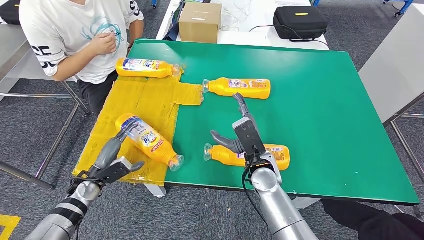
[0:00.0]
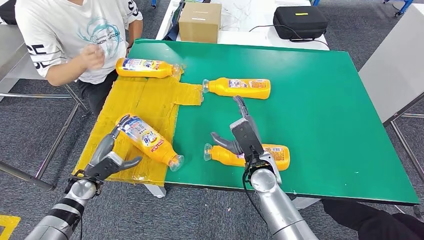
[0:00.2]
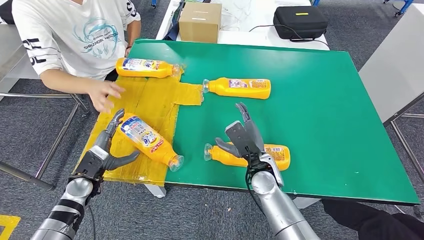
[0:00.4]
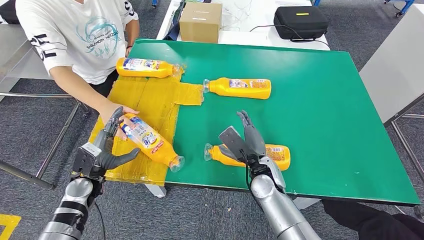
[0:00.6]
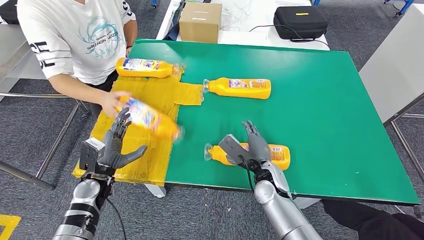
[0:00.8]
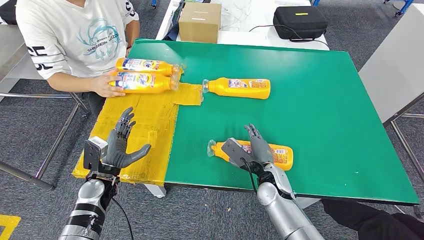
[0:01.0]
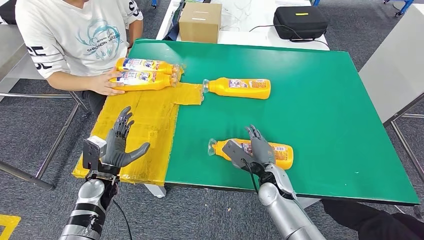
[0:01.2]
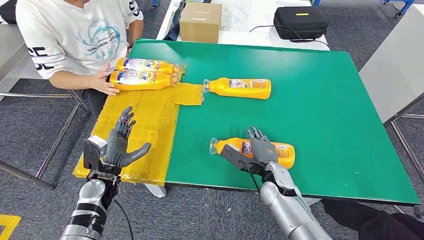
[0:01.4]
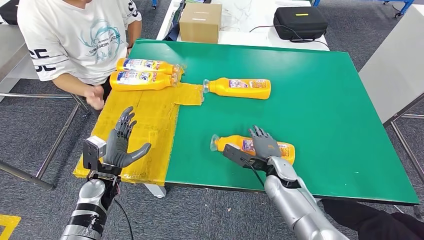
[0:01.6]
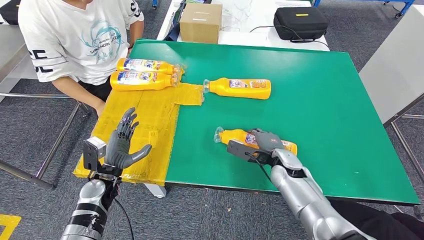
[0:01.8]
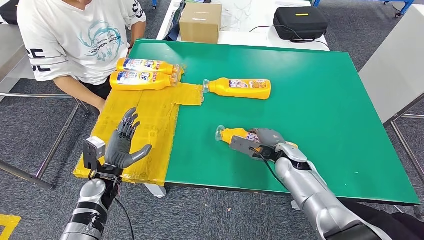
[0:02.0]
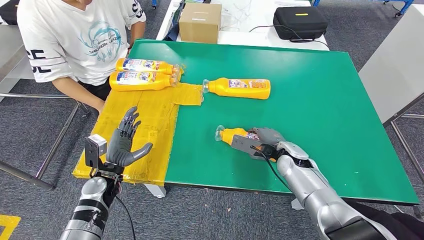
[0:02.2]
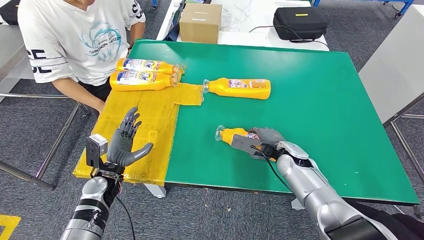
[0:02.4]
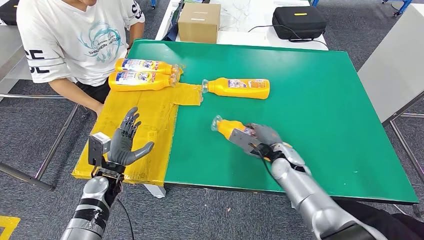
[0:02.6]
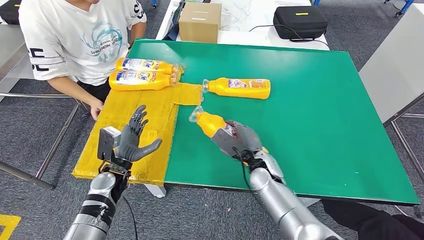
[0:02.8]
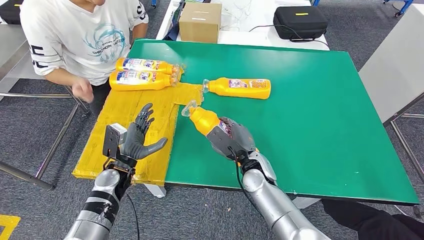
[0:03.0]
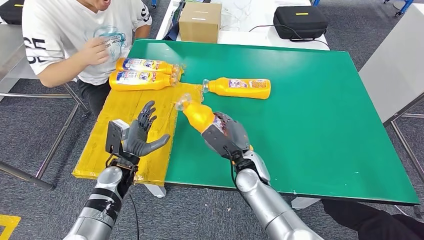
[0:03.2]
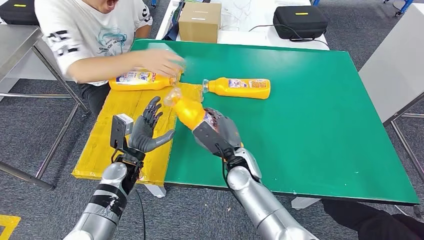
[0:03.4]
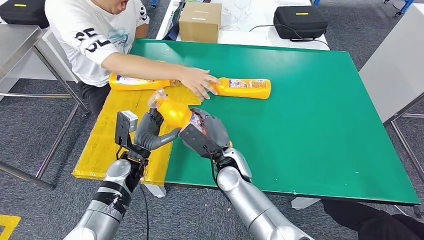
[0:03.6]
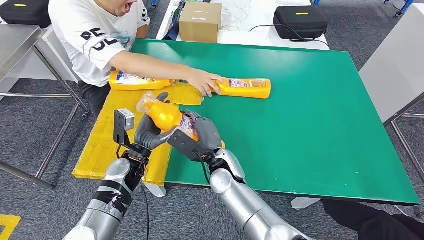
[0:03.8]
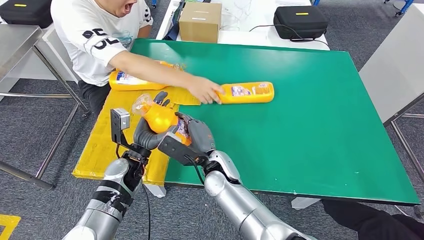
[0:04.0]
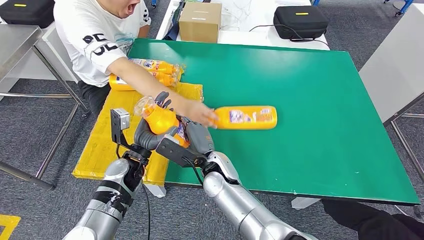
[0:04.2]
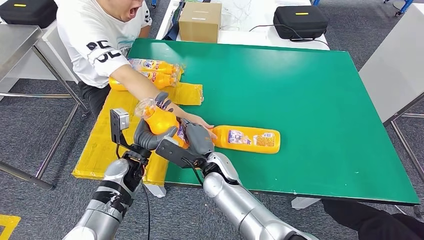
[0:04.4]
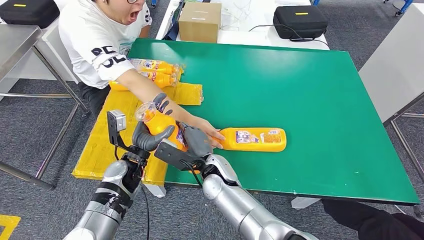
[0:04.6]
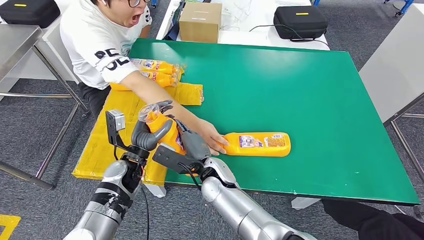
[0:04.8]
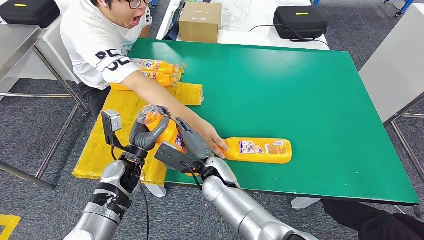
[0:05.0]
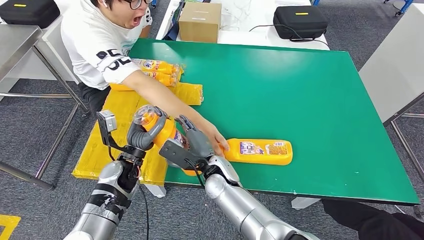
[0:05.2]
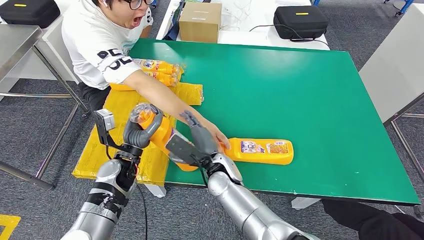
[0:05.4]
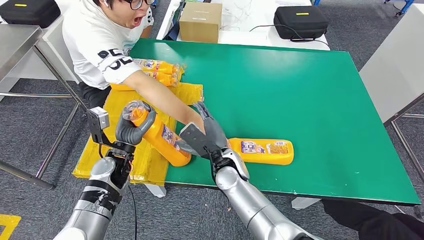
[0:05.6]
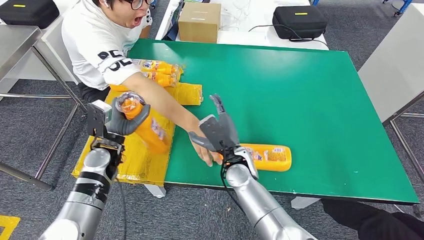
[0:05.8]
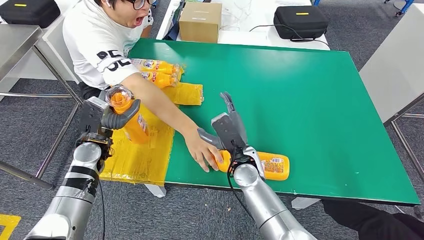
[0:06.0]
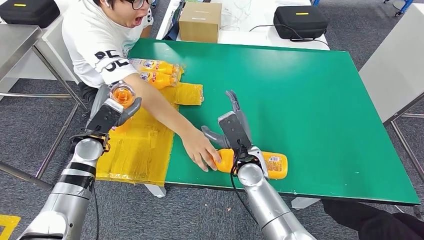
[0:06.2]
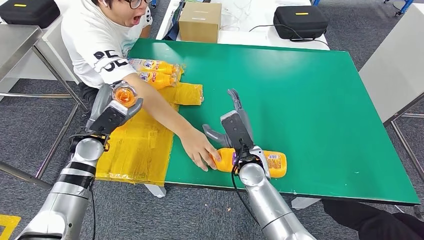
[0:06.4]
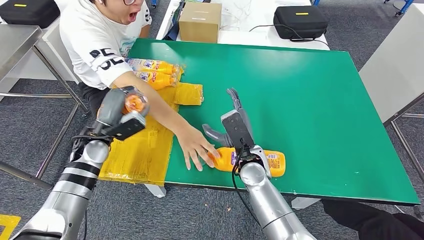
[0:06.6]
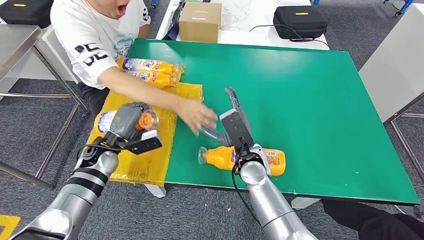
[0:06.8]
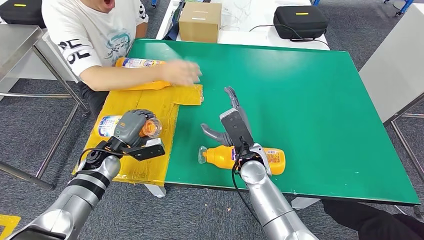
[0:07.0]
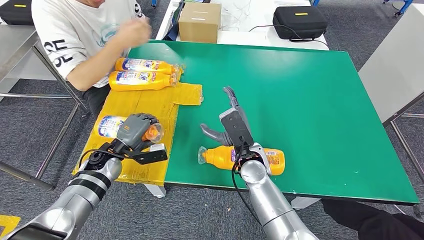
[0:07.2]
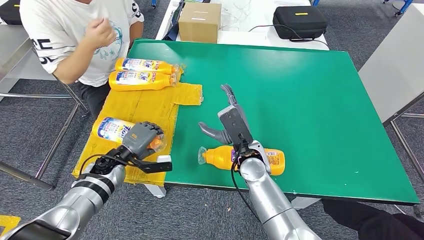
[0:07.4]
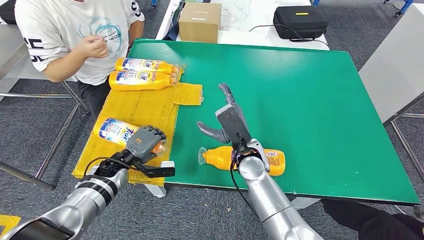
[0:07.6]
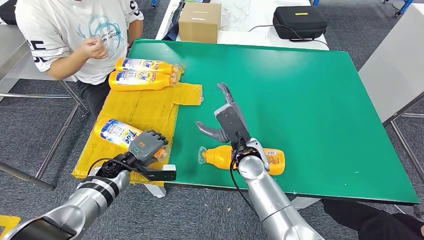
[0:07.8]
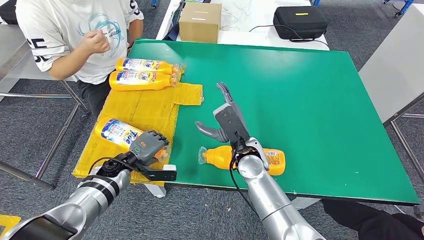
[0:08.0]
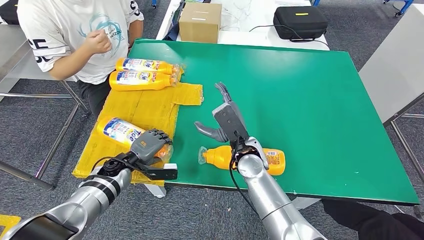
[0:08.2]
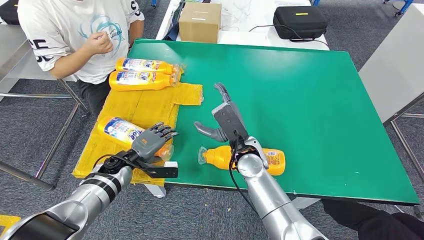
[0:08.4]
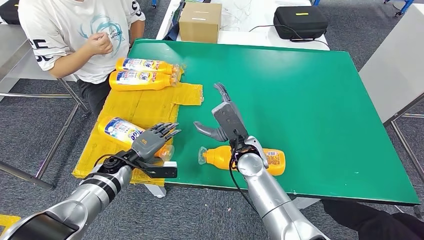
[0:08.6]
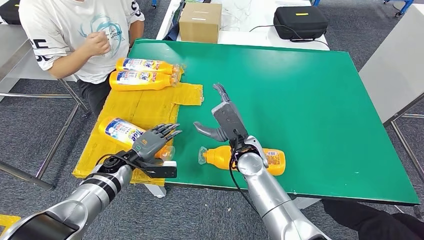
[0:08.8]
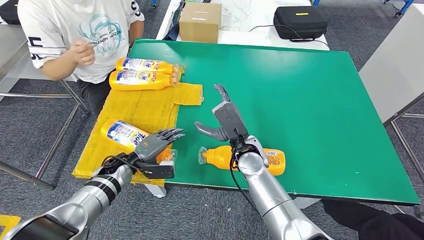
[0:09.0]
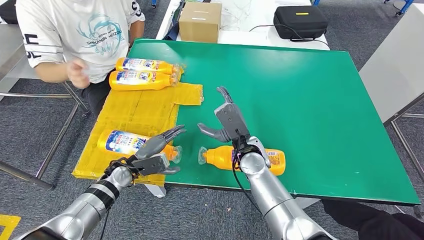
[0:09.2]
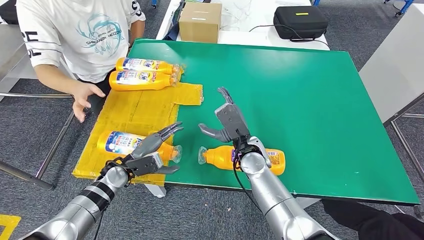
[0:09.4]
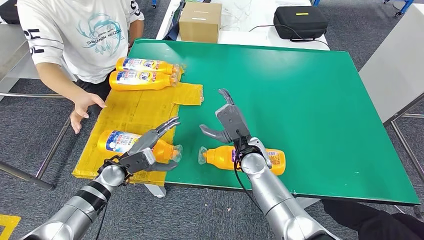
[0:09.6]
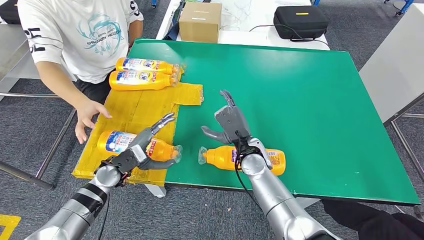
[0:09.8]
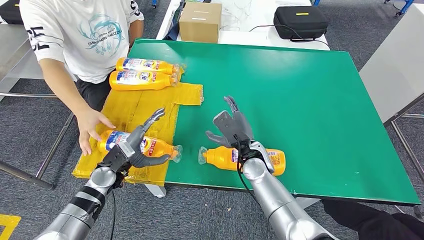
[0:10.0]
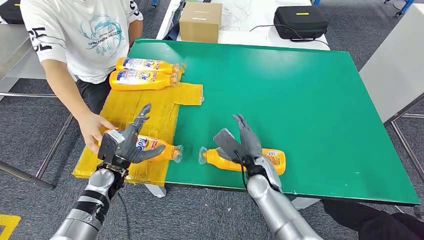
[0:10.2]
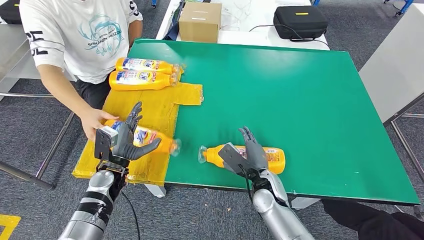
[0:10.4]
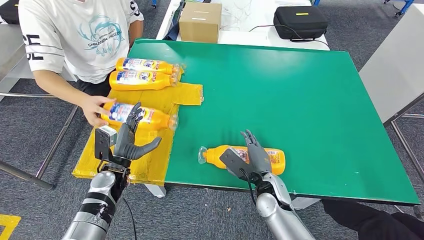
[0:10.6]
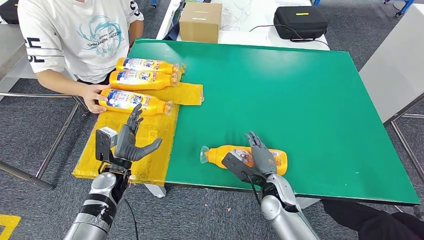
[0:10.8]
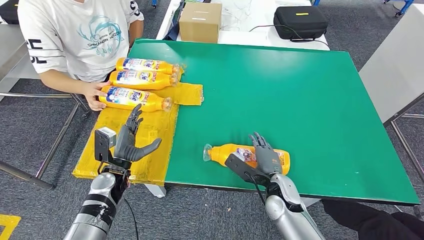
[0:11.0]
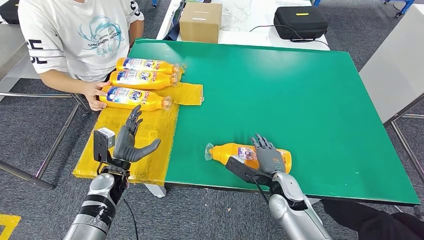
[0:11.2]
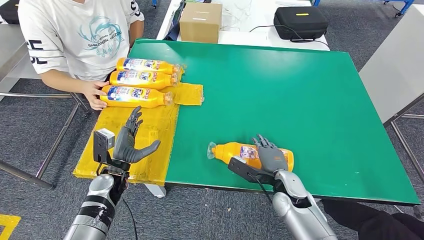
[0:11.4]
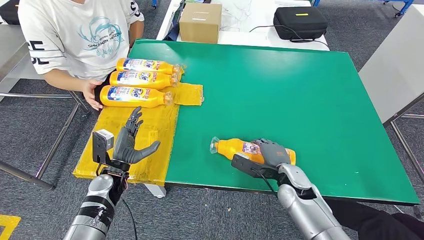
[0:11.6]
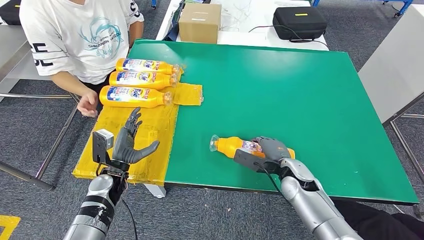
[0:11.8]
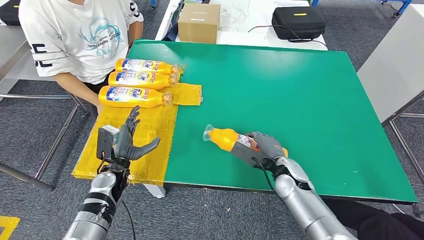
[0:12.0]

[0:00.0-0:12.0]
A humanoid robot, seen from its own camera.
Step, 0:00.6 to 0:03.2: Pick up the bottle from the table.
Step, 0:03.8 to 0:11.0: Flip the bottle to face forward.
0:00.0 to 0:01.6: The right hand travels to the right and downward by about 10 cm, while the left hand goes approximately 10 cm to the right.
0:01.6 to 0:03.0: The right hand heads to the left, covering some 10 cm.
0:09.0 to 0:10.4: The right hand moves downward, backward and to the right, approximately 10 cm.
0:10.4 to 0:12.0: The right hand heads to the right, covering some 5 cm.

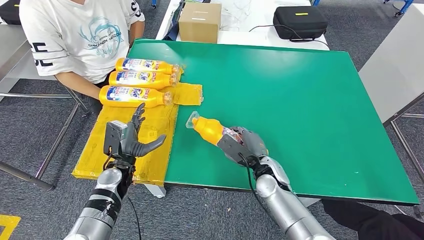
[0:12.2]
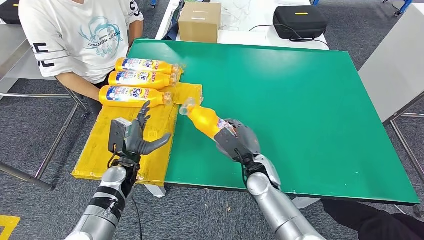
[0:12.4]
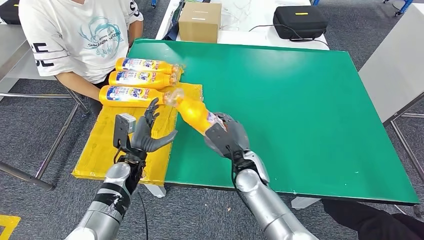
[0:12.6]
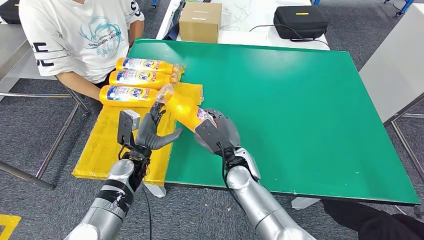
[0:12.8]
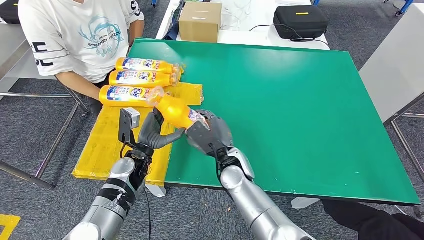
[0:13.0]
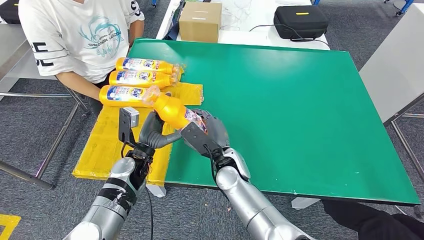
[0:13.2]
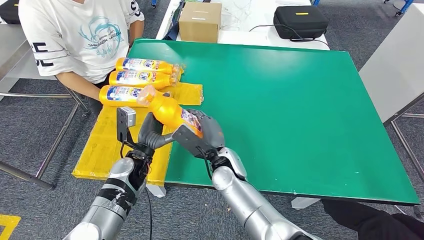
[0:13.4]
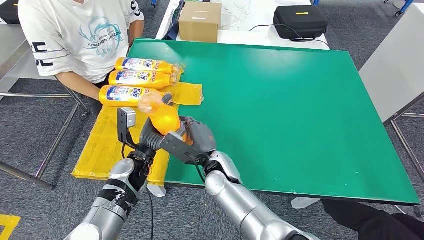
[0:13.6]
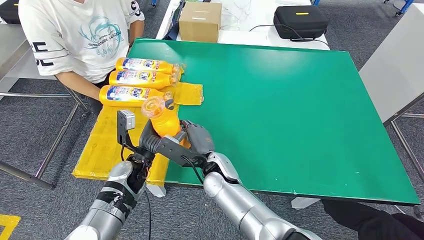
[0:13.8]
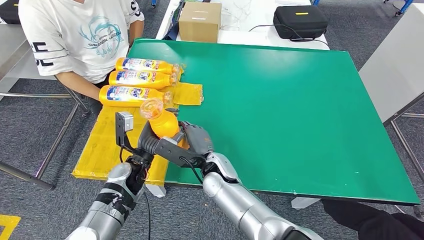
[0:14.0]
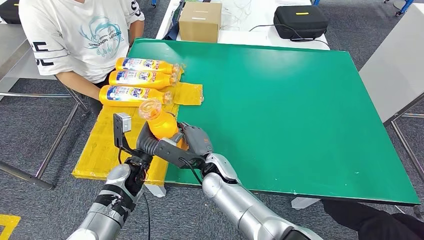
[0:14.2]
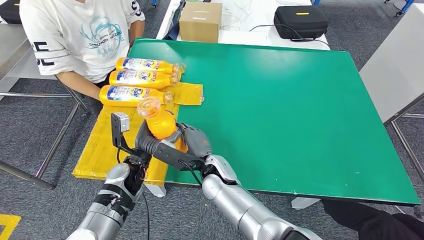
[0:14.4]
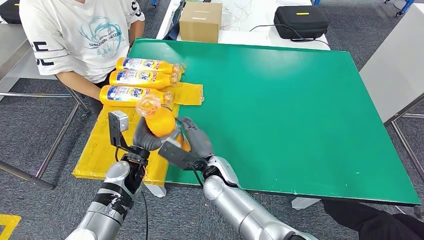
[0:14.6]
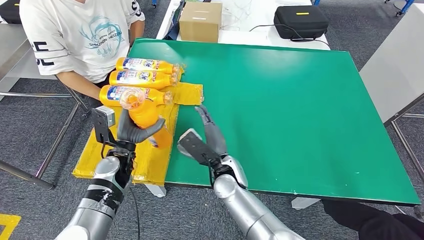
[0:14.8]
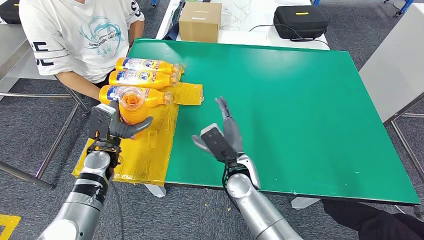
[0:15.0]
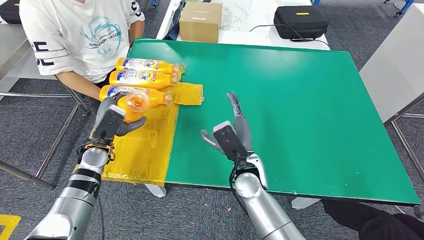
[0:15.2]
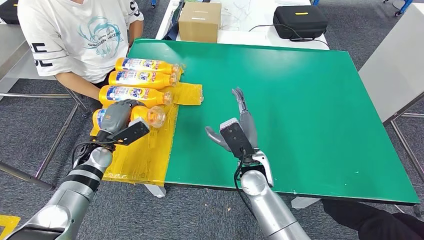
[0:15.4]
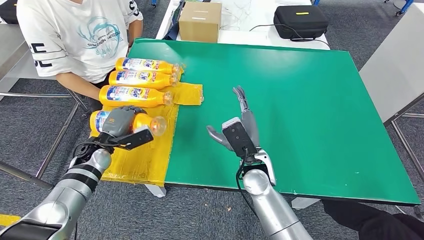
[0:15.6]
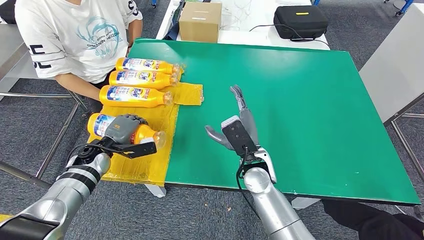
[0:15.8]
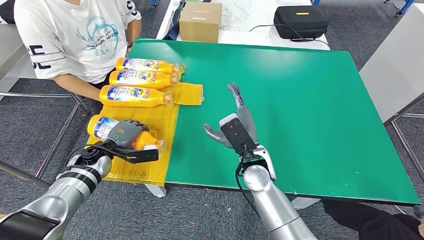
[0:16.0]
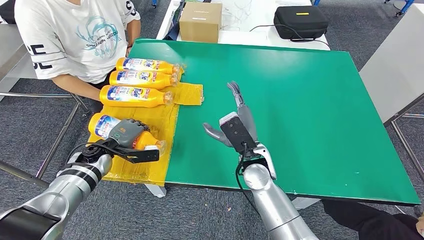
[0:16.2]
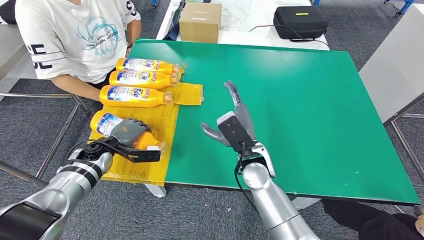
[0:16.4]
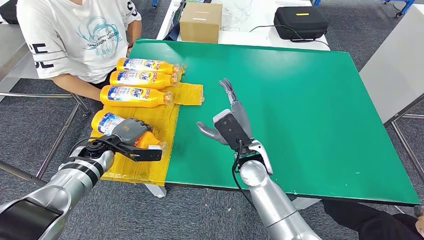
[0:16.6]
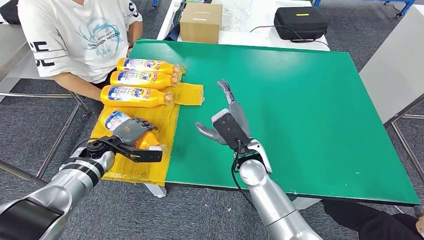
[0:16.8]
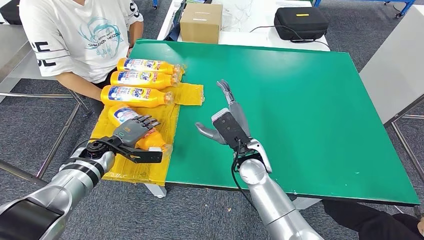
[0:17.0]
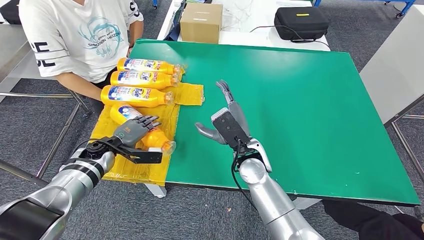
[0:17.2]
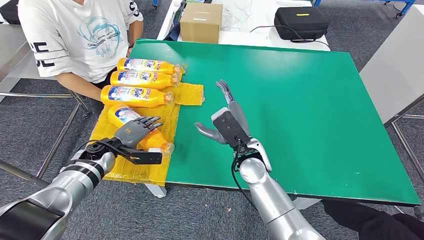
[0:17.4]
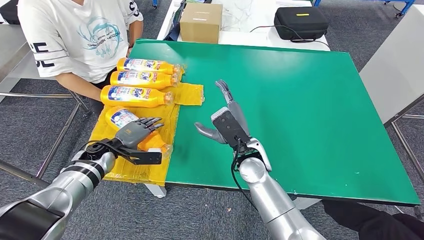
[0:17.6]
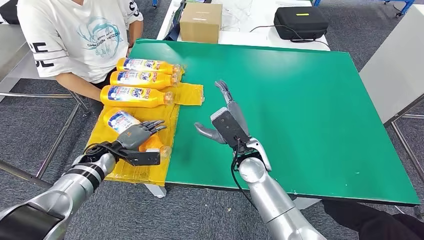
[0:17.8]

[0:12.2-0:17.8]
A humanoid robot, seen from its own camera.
Step, 0:12.2 to 0:13.2: Pick up the bottle from the table.
Step, 0:13.8 to 0:17.6: Flip the bottle to face forward.
0:12.2 to 0:13.6: The right hand shifts approximately 15 cm to the left, while the left hand heads to the right, covering about 5 cm.
0:13.6 to 0:15.0: The right hand travels to the right by about 5 cm. The left hand shifts roughly 10 cm to the left.
0:15.0 to 0:16.4: The left hand heads to the left, covering about 5 cm. Meanwhile the right hand ends up roughly 5 cm from where it was.
0:16.4 to 0:17.8: There are only small adjustments of the hands.
